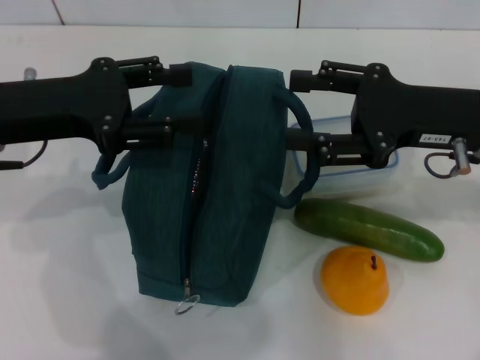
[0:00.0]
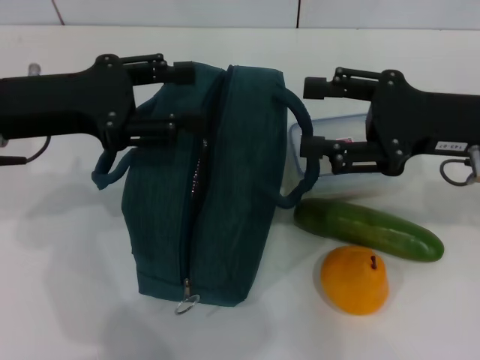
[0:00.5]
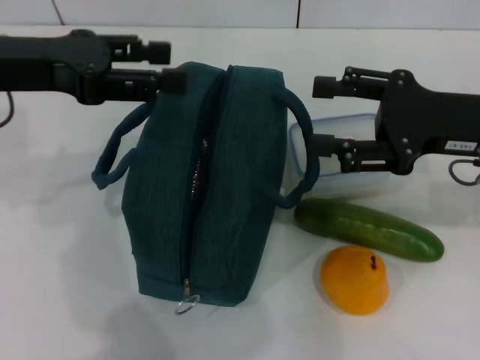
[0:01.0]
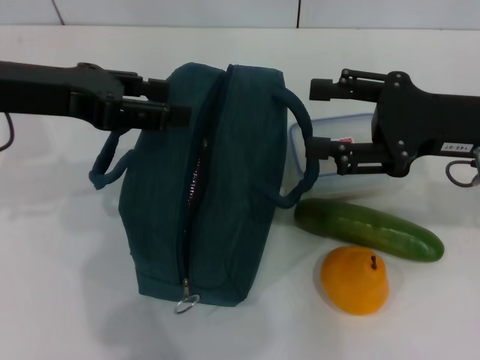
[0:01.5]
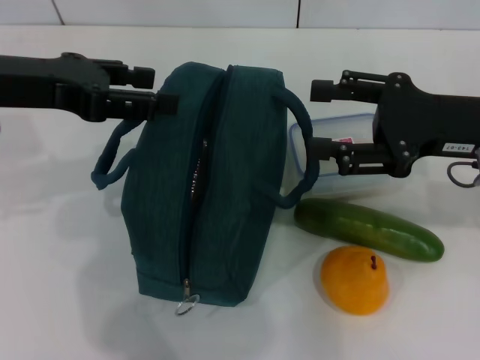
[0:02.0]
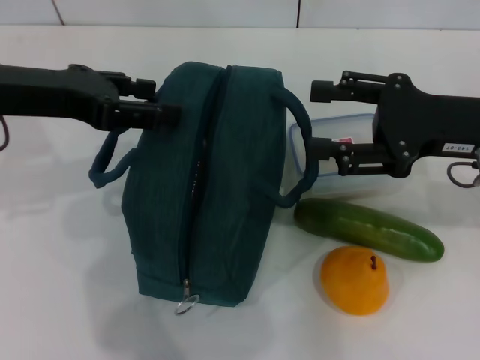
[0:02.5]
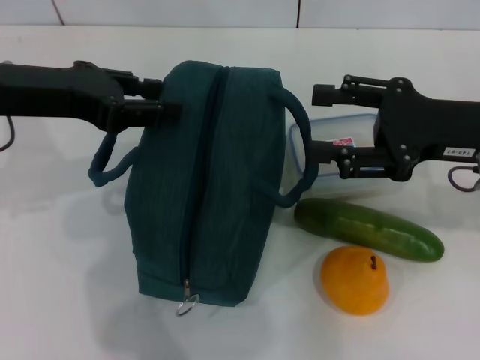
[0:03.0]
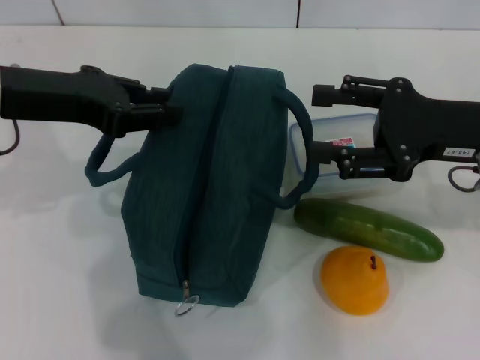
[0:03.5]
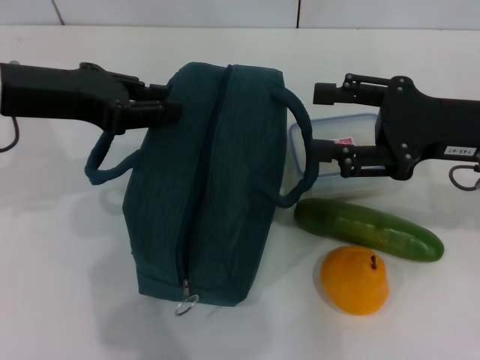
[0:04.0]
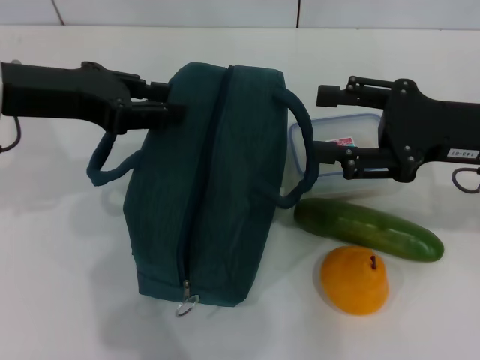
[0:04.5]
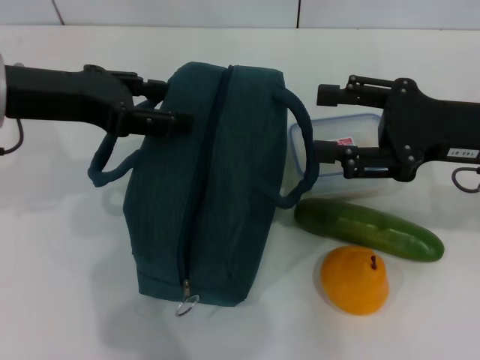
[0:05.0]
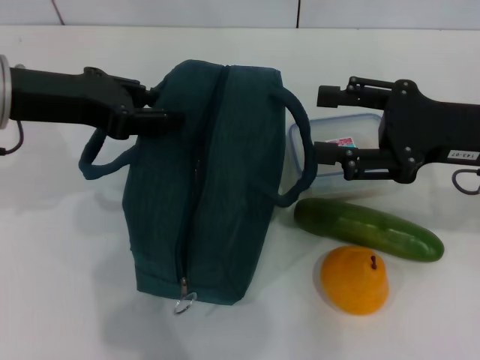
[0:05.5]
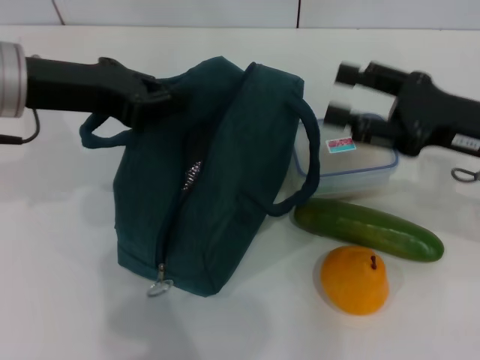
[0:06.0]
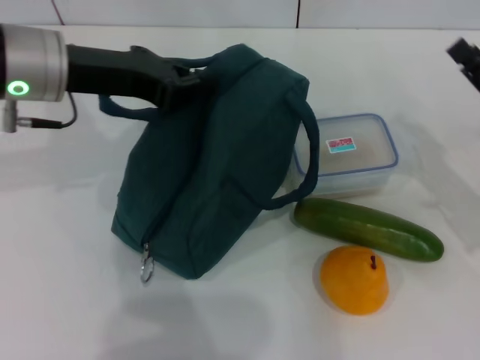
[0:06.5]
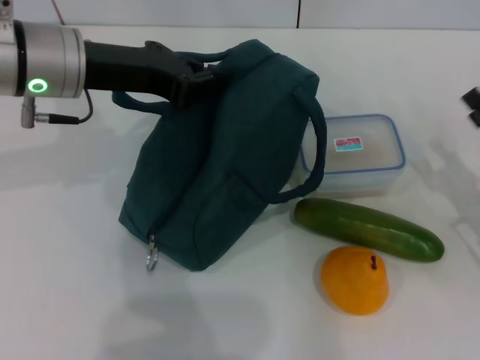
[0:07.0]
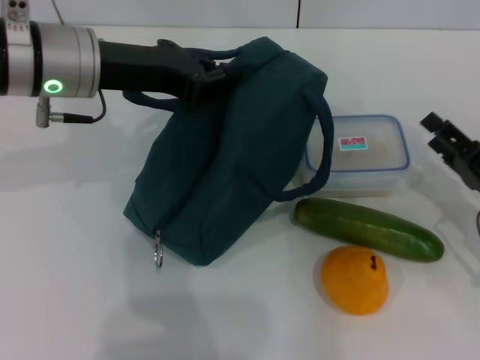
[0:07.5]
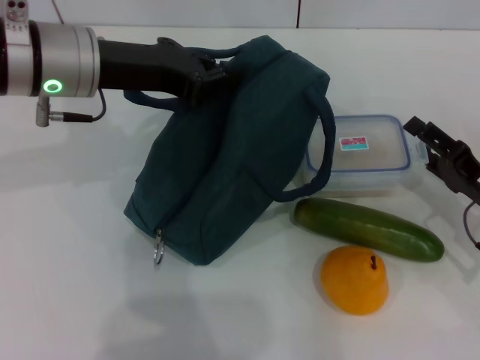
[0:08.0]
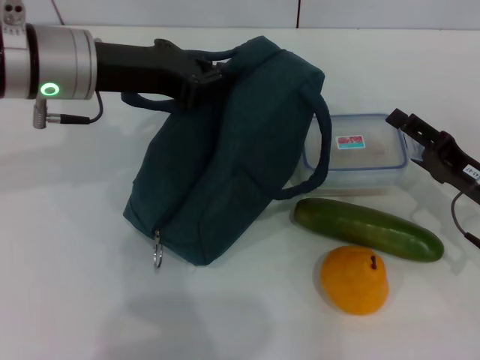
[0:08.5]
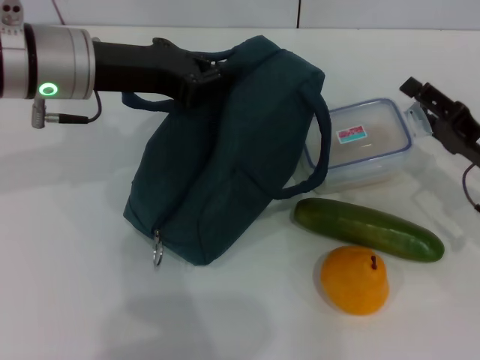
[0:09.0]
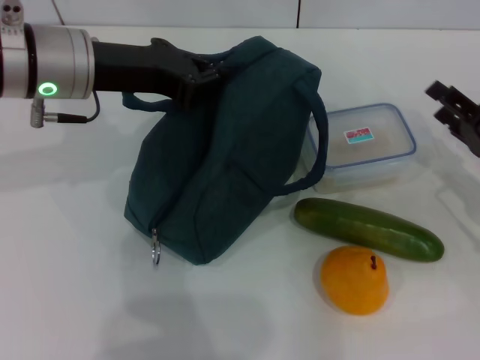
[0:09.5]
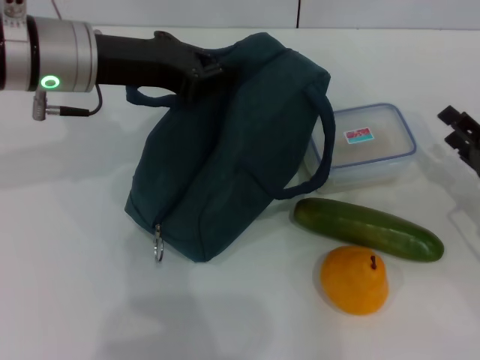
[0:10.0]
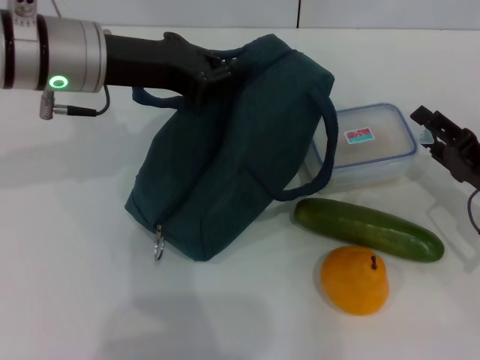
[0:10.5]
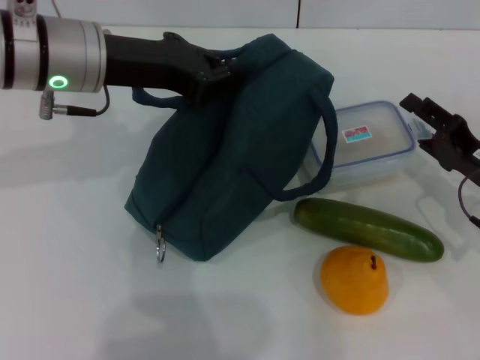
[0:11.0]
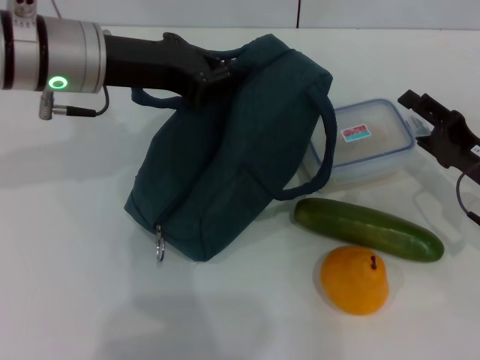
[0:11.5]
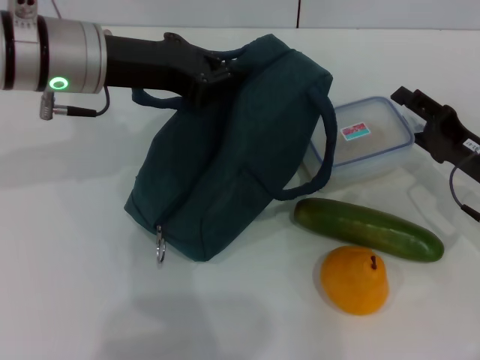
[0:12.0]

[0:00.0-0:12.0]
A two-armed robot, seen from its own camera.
Step, 0:00.0 to 0:06.0: Hold the lunch bag with your left hand.
0:00.0 to 0:02.0: The left gripper shifts some 5 cm upward.
0:02.0 to 0:04.0: The left gripper closes its fingers.
0:04.0 to 0:06.0: The left gripper opens and closes again.
0:06.0 to 0:08.0: The right gripper is displaced downward by about 10 cm; the left gripper shifts by some 5 cm.
0:08.0 to 0:10.0: The grippers stay close to where they were, moving slightly.
0:10.0 to 0:12.0: The right gripper shifts by about 5 cm.

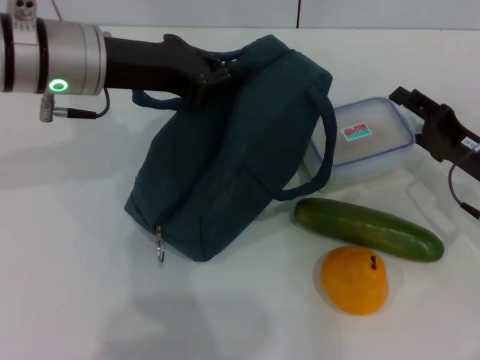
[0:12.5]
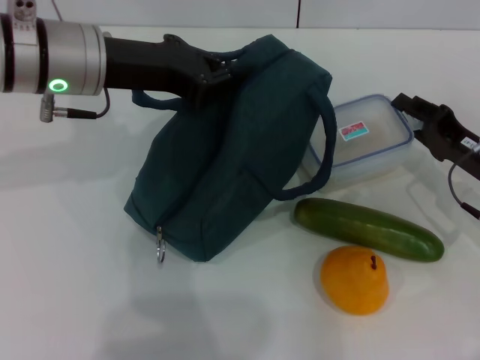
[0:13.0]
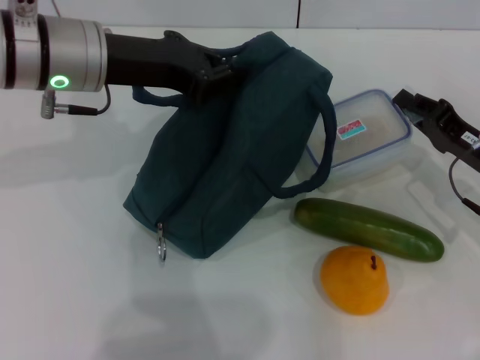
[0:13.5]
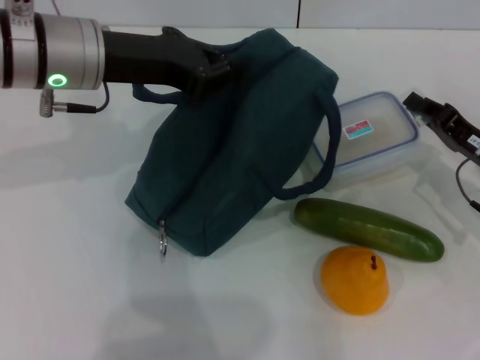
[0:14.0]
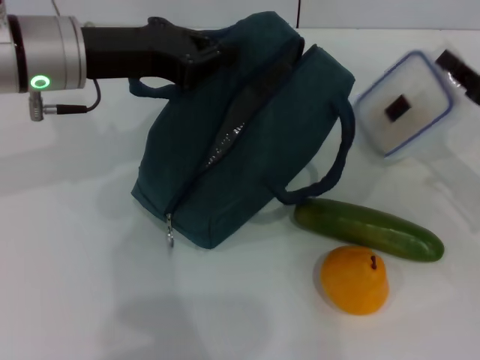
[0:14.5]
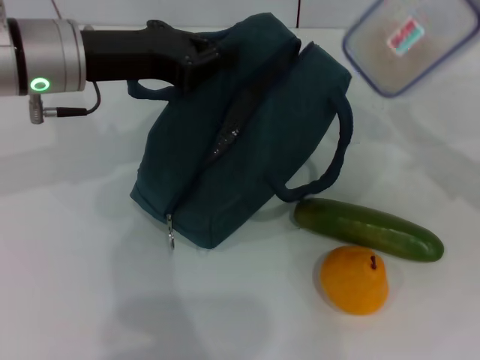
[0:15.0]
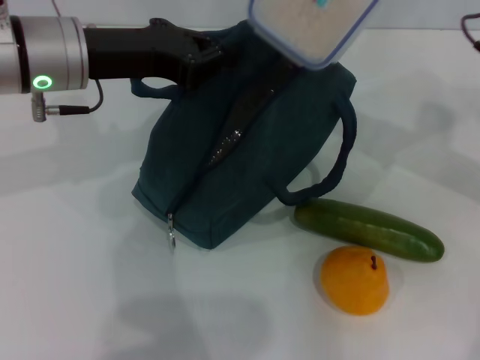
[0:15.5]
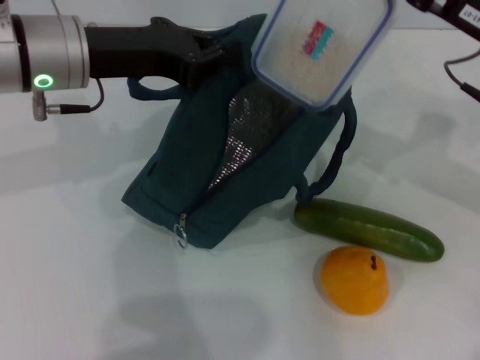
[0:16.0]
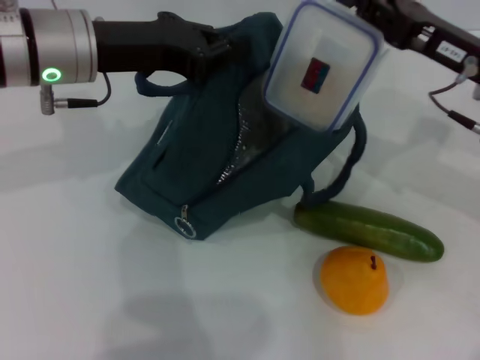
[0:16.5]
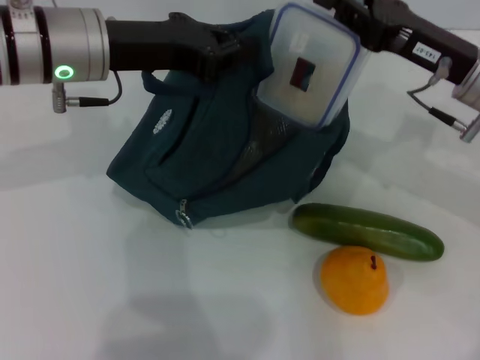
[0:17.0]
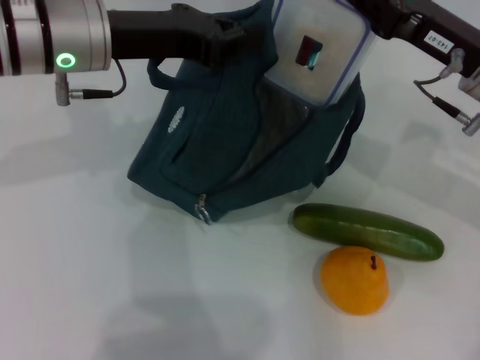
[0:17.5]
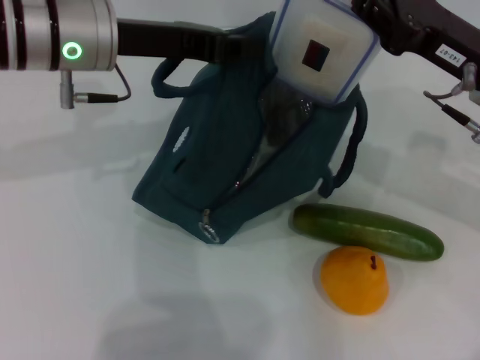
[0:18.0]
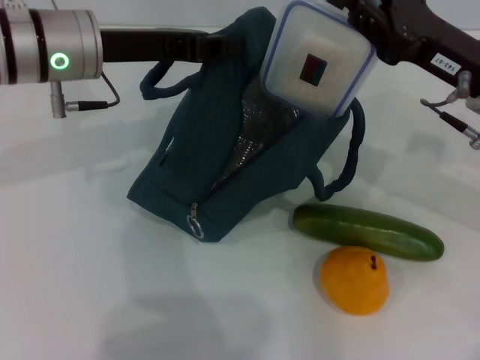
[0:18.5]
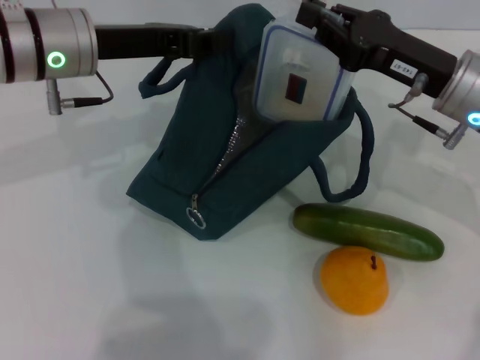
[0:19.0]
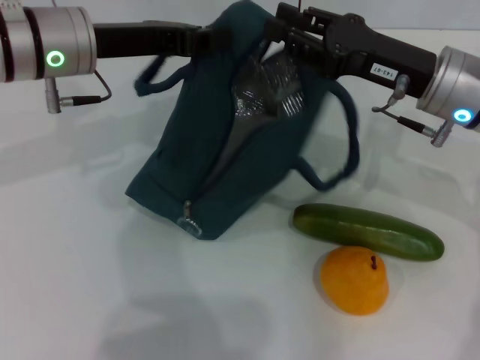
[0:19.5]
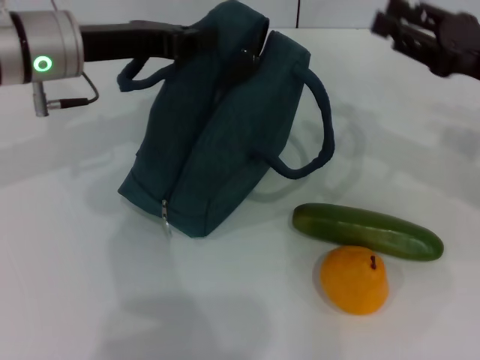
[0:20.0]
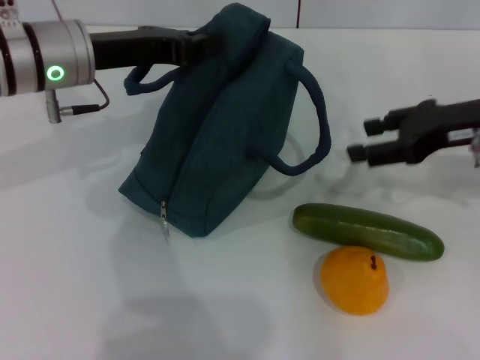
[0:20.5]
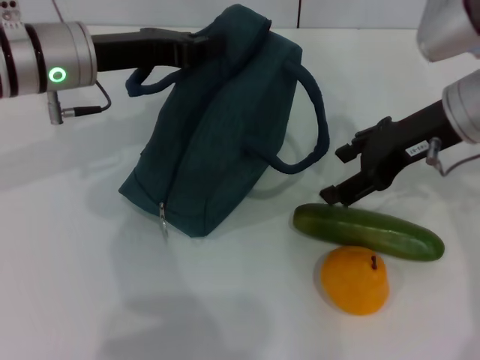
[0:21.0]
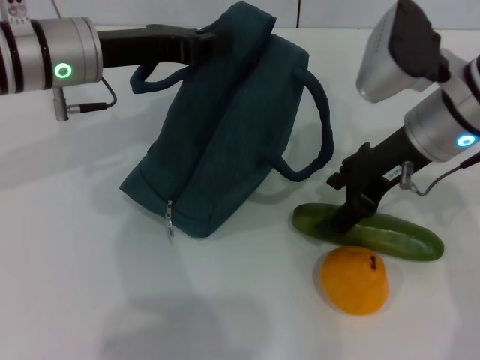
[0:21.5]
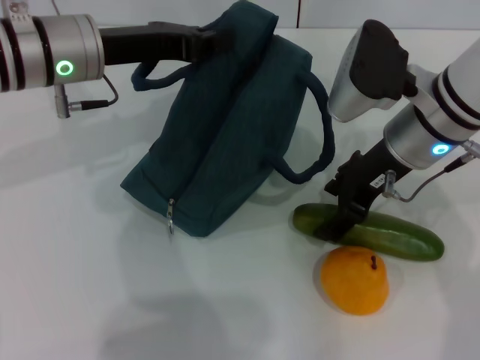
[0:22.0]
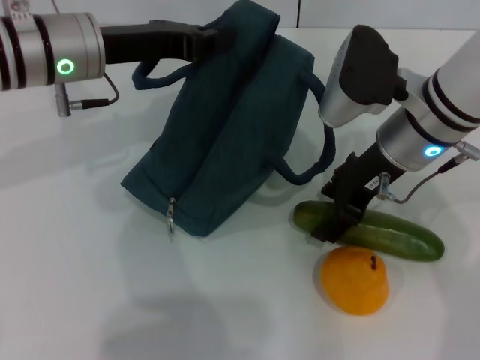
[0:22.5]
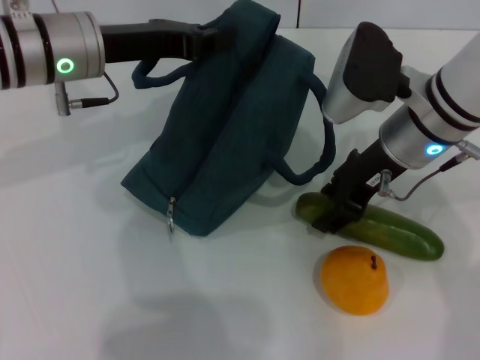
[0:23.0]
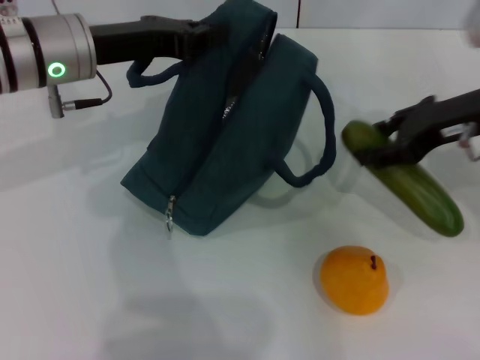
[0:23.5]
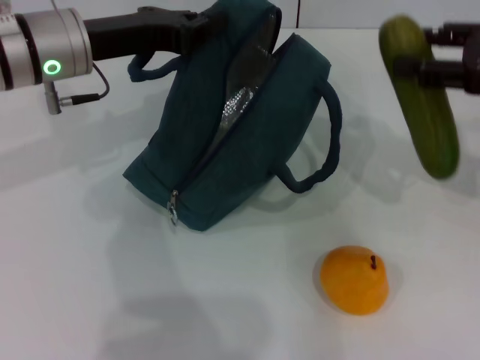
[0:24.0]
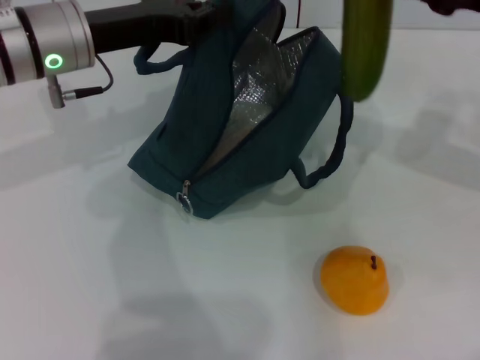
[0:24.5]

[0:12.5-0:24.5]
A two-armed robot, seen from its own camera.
Step, 0:14.0 to 0:19.5: Place the lunch box into the lunch bag with your right hand.
Step, 0:20.0 to 0:22.5: Pick up the cucumber with your right hand.
0:12.5 to 0:14.5: The right gripper closes up.
0:14.5 to 0:16.5: The right gripper travels upward and to the left by about 10 cm.
0:20.5 to 0:22.5: The right gripper is displaced to the left by roughly 10 cm.
0:22.5 to 0:24.5: The right gripper travels to the right and upward by some 15 cm.

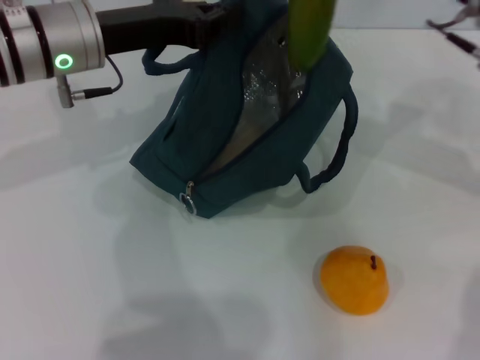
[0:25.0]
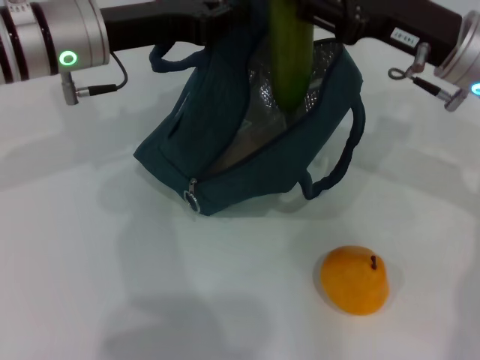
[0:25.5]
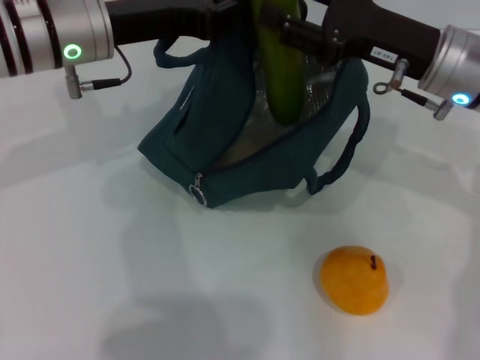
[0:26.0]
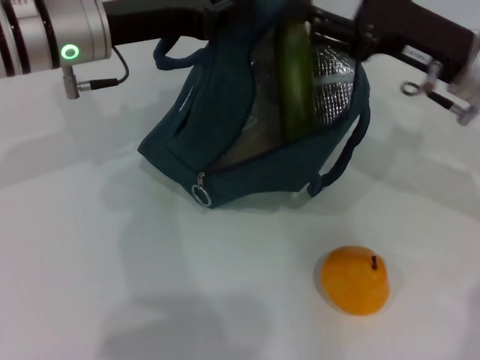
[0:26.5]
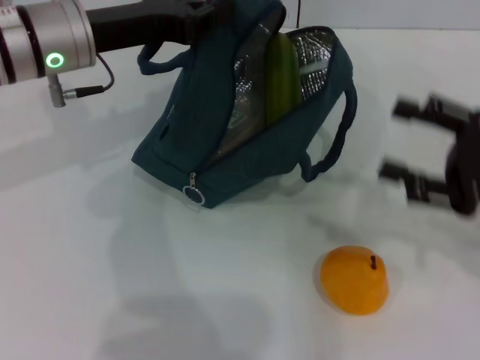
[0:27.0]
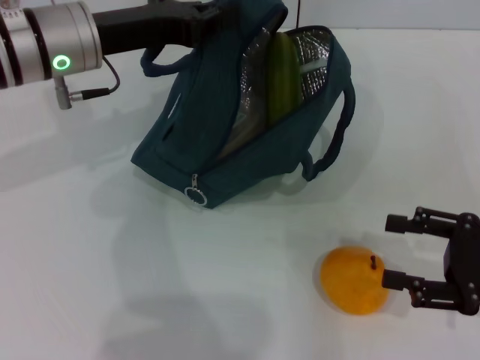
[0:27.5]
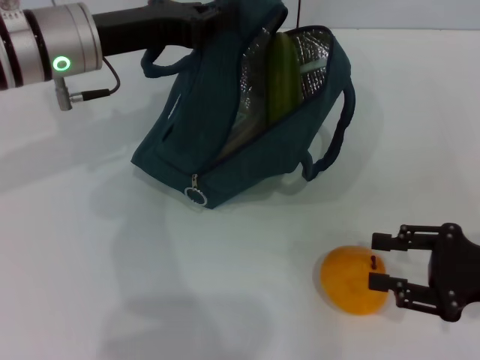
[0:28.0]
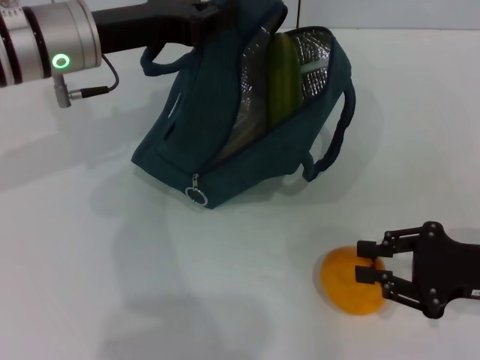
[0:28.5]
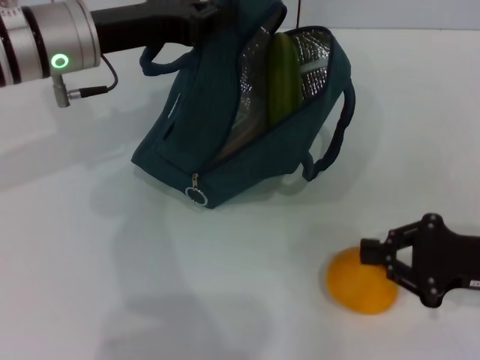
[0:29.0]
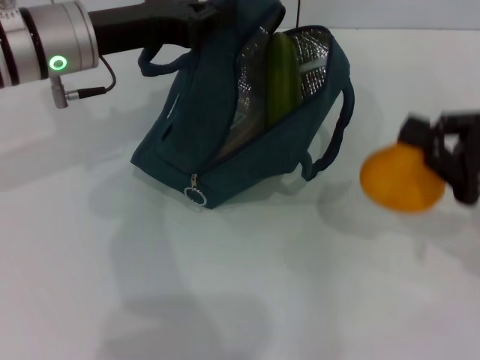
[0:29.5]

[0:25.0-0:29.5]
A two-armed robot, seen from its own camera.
Step, 0:27.0 to 0:28.5: Grab the pear with your right hand.
0:25.0 to 0:27.0: The right gripper travels backward, downward and to the right by about 15 cm.
0:27.0 to 0:29.5: The right gripper closes.
